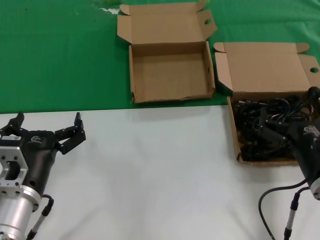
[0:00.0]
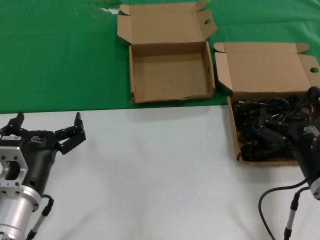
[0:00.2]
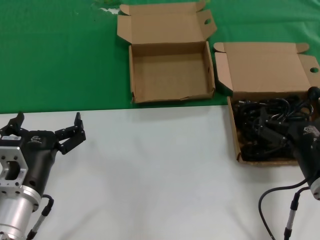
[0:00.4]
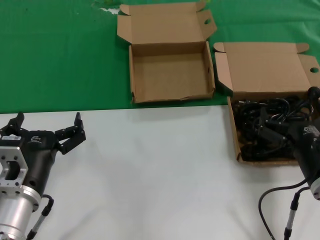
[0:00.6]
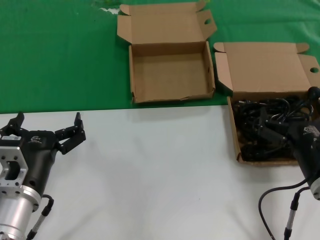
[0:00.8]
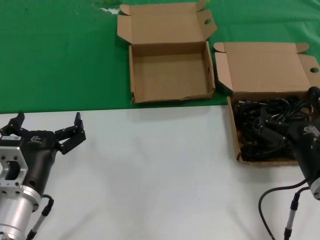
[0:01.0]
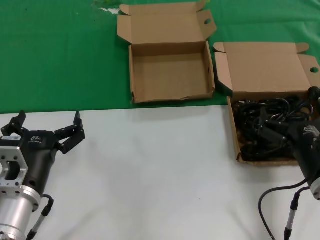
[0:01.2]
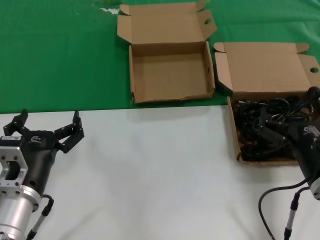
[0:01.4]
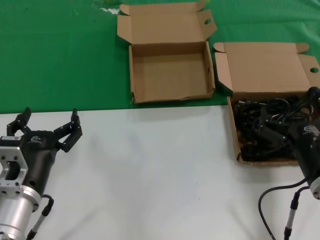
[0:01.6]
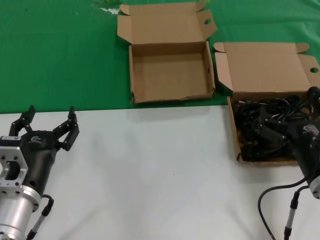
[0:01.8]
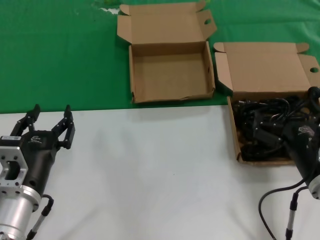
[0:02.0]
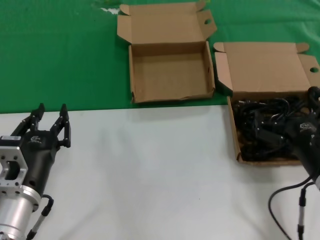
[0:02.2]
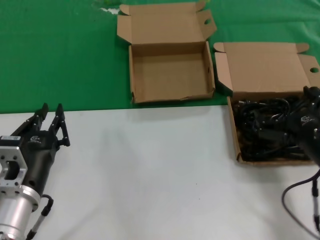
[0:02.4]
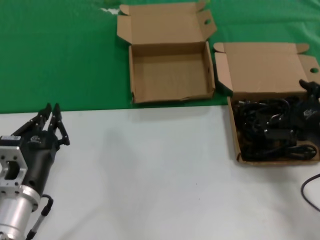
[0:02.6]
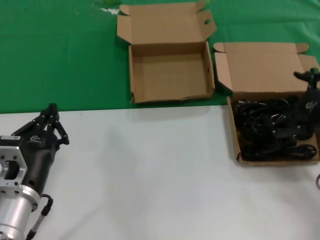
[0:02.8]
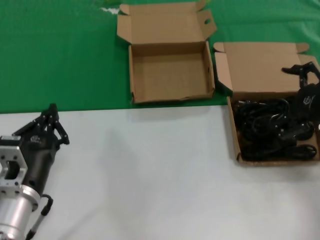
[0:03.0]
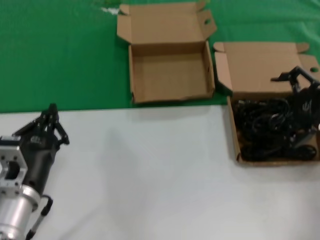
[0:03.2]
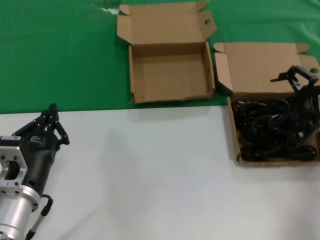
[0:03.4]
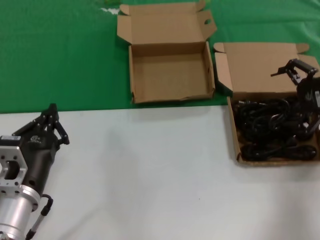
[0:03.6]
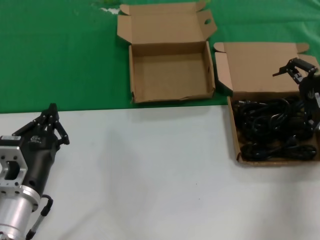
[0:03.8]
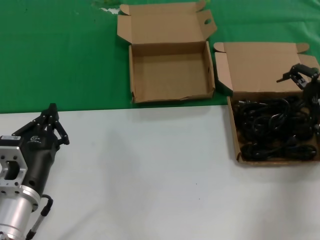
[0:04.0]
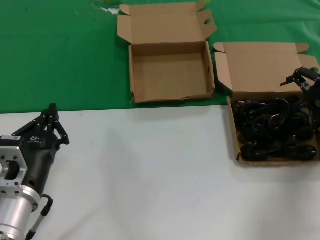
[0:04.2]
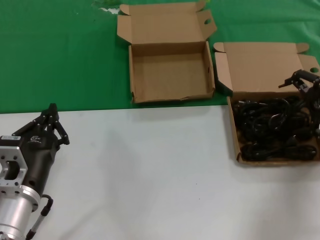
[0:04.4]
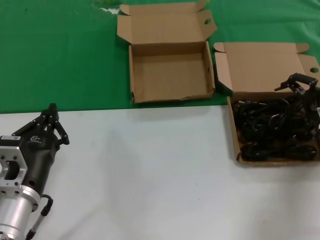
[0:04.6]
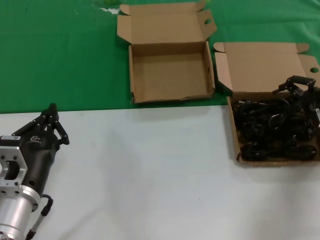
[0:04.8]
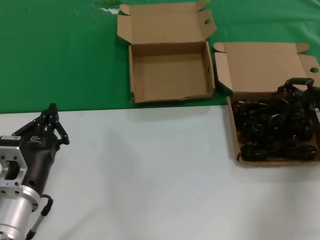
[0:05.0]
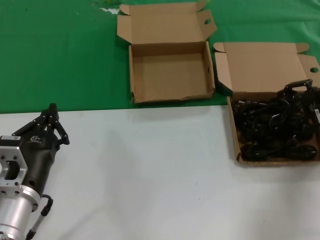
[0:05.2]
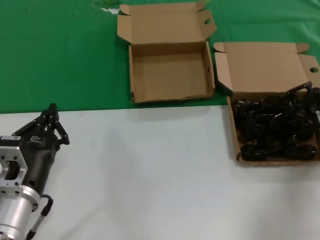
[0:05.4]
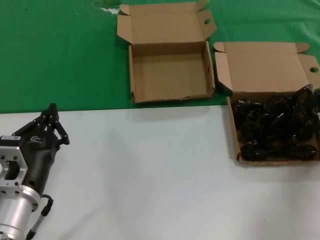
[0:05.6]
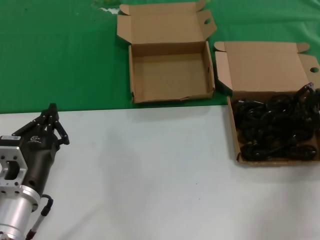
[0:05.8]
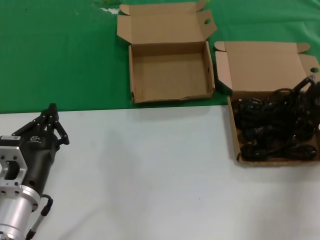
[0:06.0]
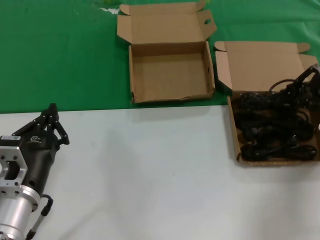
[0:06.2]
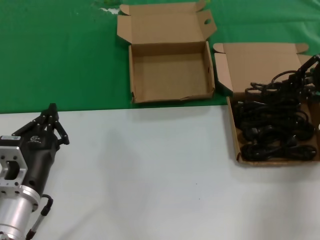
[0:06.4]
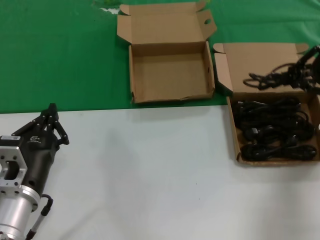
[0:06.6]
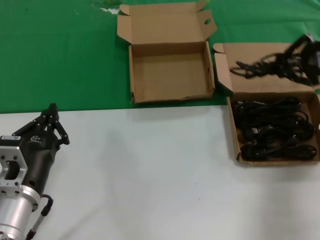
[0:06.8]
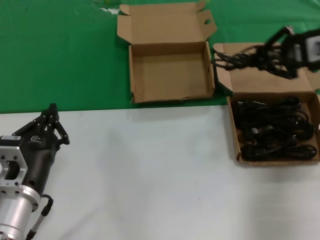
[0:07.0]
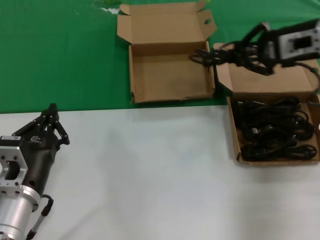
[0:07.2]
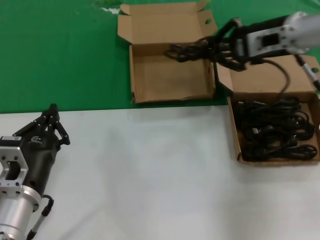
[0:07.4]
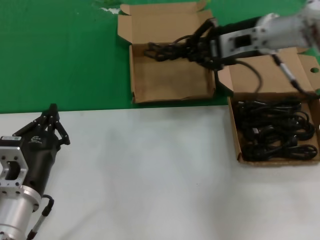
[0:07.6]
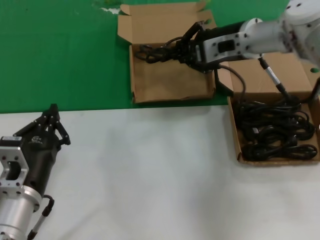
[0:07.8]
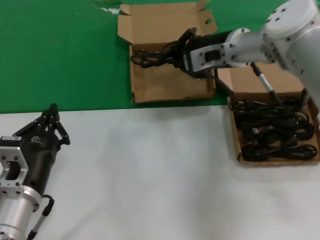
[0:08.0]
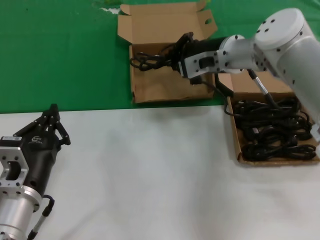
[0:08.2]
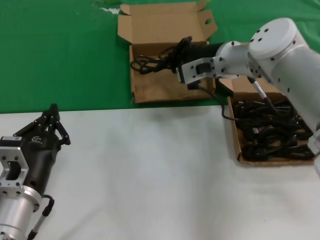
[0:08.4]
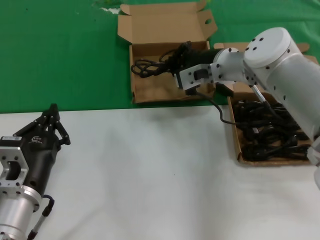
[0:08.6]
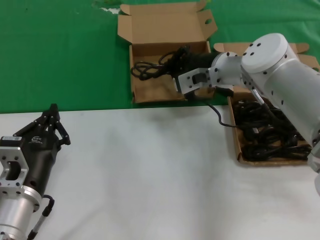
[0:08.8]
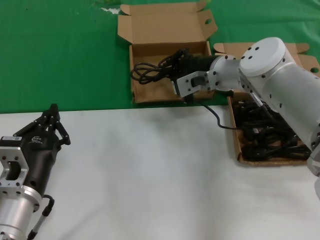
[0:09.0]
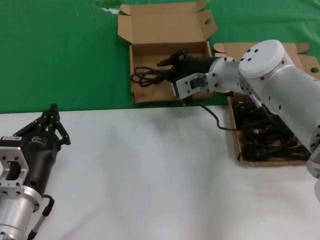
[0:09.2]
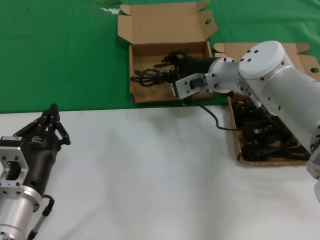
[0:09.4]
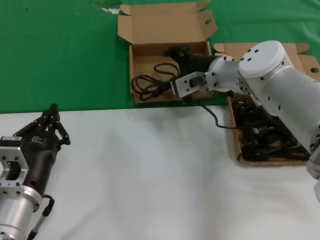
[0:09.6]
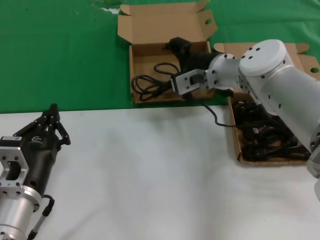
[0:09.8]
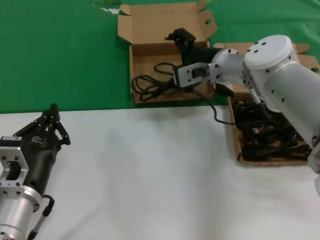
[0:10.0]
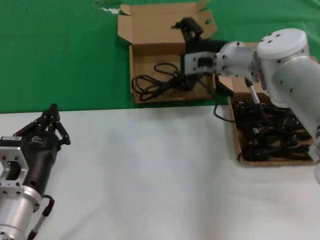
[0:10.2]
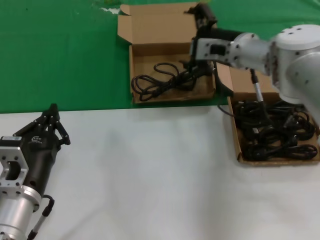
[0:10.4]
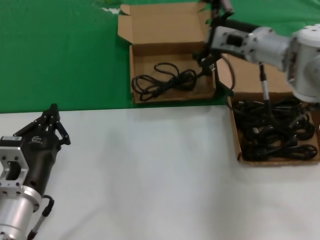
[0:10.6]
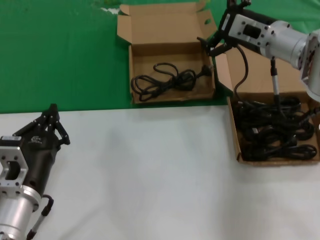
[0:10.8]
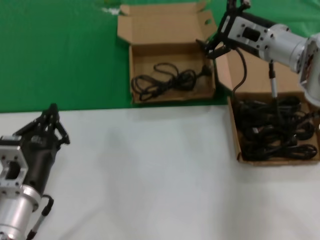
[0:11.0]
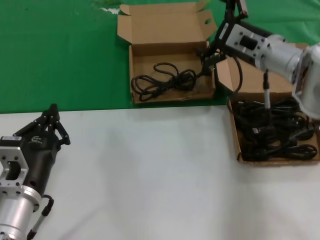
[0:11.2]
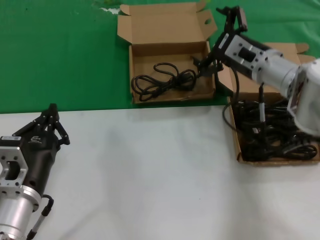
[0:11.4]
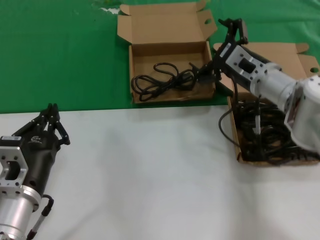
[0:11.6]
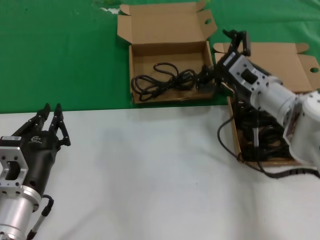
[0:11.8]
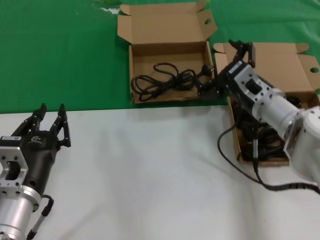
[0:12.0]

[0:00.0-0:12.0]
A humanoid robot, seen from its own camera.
Task of the whole recording: take the parts from the box containing them and put them into an empty box.
Step, 0:00.0 to 0:05.4: Grasp the data cable.
Step, 0:05.6 to 0:09.6: Place the data cable in the another box.
0:00.0 to 0:01.6: Both hands stay put.
0:01.6 to 0:03.0: The right hand moves to the right, upward and forward, some 20 cm.
0:03.0 to 0:04.4: The right hand travels forward by some 10 cm.
0:04.4 to 0:06.0: There are only small adjustments of the hands.
0:06.0 to 0:07.6: The right hand travels to the left by about 20 cm.
0:07.6 to 0:09.0: The right hand goes roughly 15 cm downward and to the left.
0:09.0 to 0:10.4: The hands stay close to where they were, moving slightly.
0:10.4 to 0:12.0: The right hand is displaced downward and backward by about 10 cm.

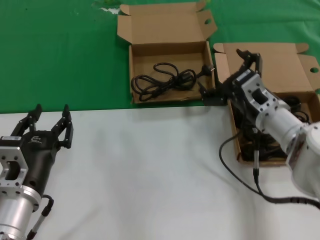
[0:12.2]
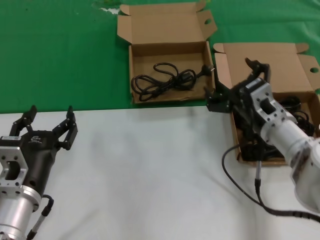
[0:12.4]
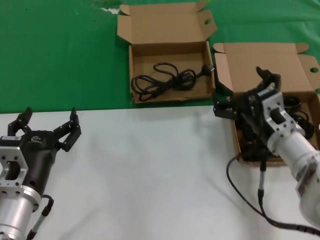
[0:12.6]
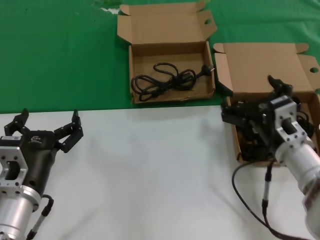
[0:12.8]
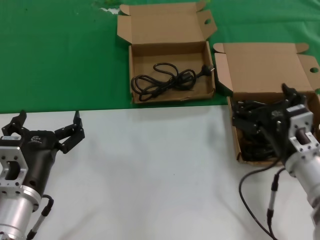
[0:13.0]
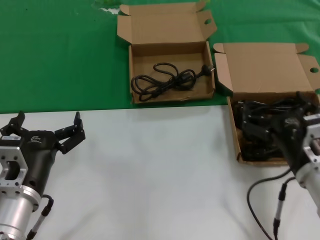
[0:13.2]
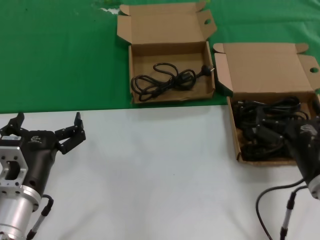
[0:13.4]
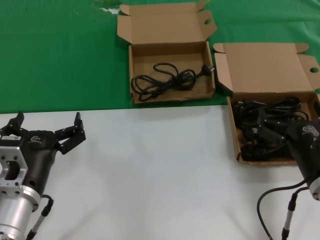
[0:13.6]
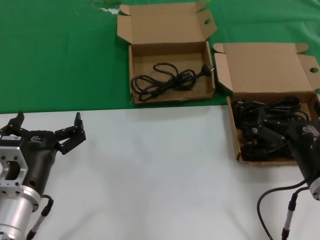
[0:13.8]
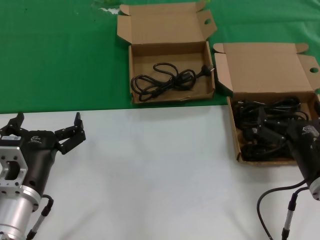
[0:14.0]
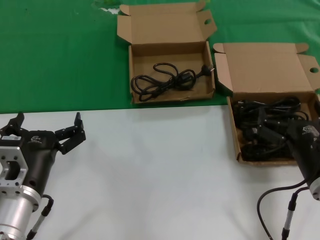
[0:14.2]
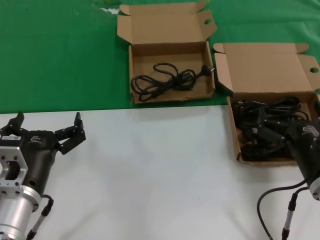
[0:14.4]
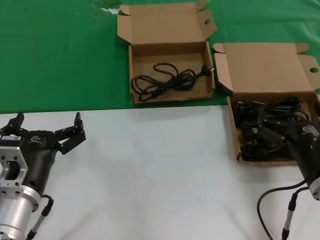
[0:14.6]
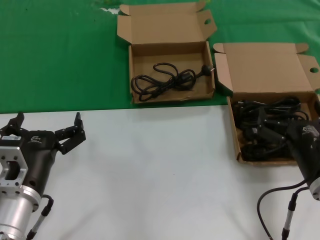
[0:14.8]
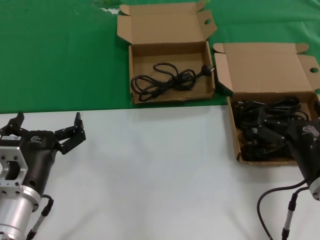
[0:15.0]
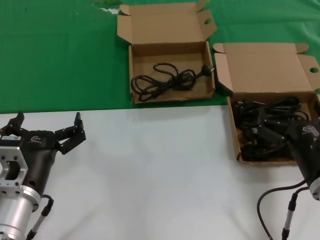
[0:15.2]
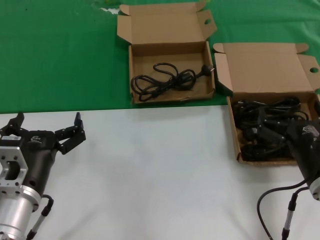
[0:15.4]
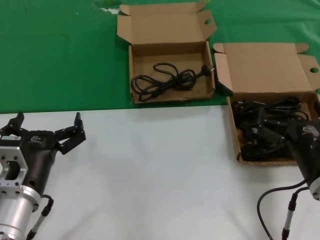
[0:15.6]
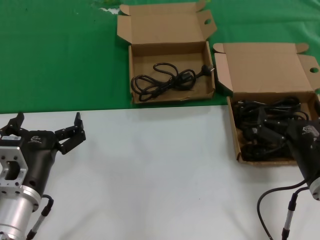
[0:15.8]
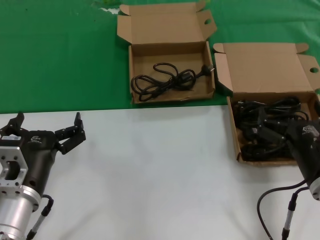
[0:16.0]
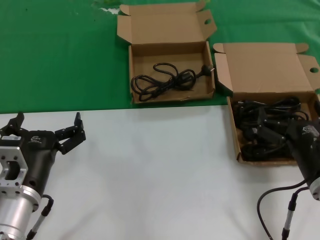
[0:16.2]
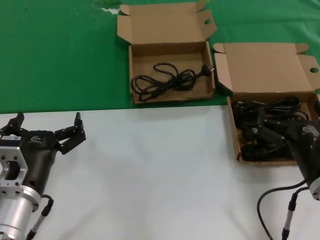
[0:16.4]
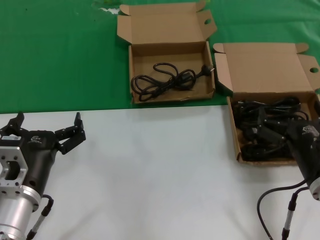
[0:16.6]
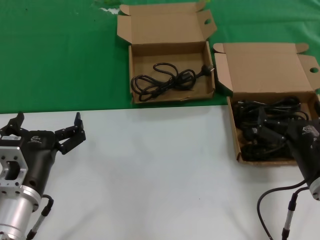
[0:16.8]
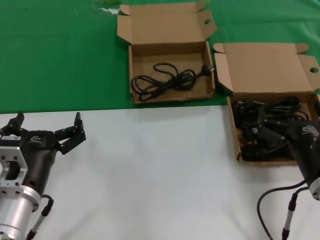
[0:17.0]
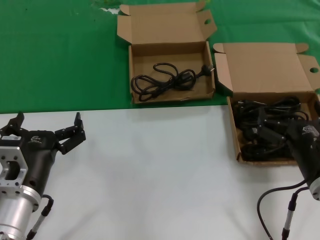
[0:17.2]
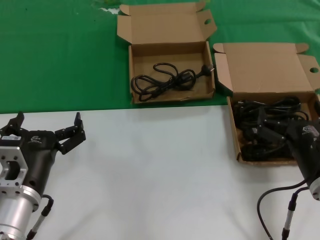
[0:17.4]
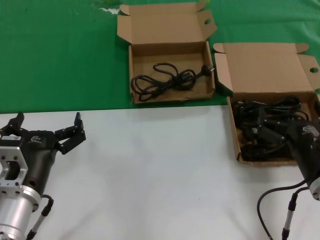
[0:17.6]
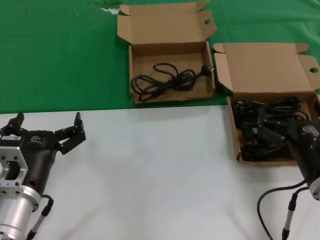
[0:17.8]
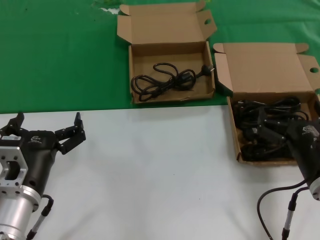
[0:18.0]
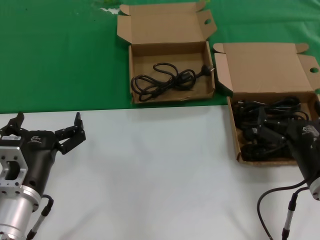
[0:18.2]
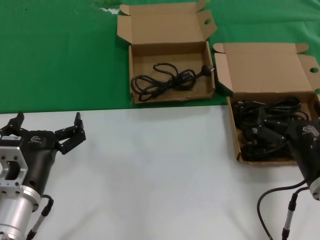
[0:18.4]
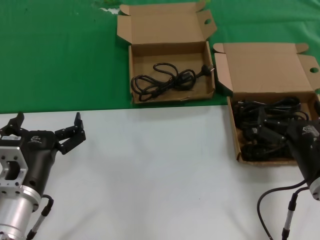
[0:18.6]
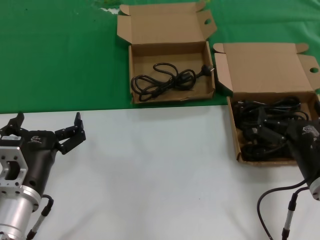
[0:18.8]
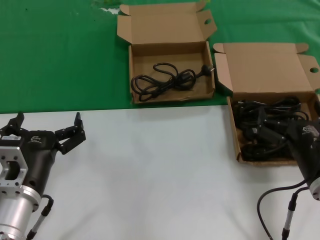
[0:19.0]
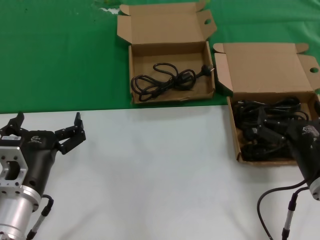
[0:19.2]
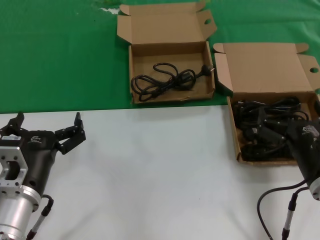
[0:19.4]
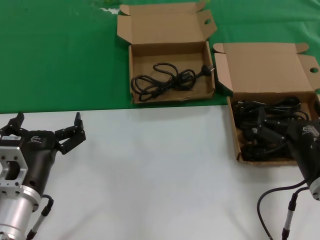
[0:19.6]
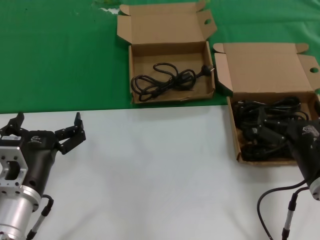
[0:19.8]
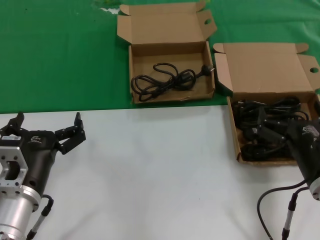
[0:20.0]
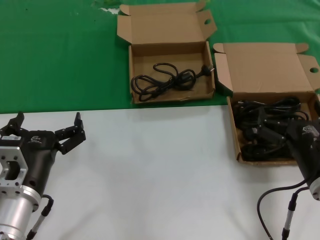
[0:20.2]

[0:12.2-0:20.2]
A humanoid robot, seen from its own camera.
Task of the whole recording: take the parts from the box containing them and put them into an empty box.
0:12.2 to 0:13.8: The right hand shifts approximately 15 cm backward.
0:13.8 to 0:20.2: Both hands stay about where they are.
